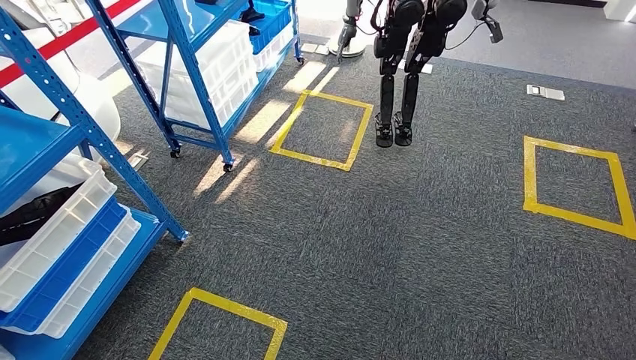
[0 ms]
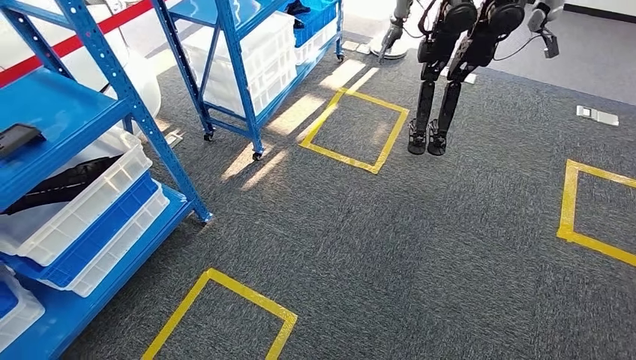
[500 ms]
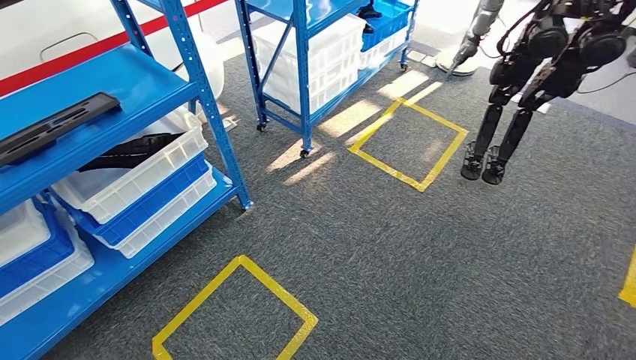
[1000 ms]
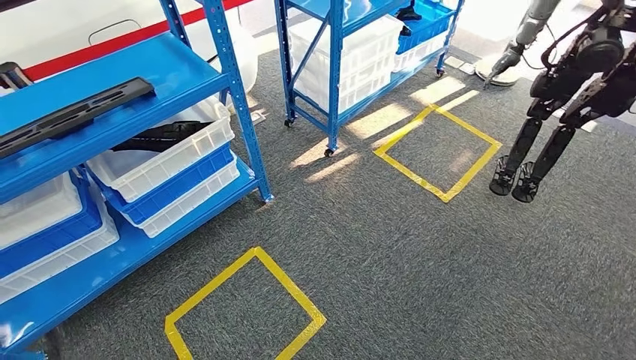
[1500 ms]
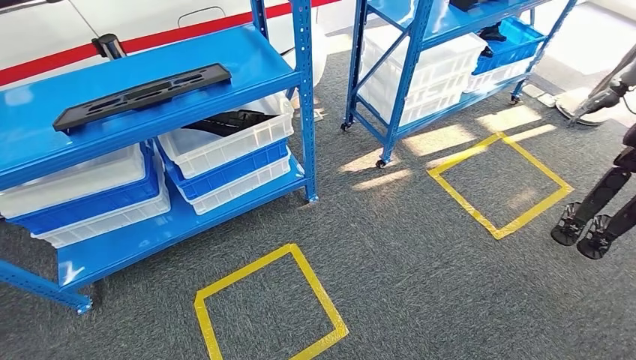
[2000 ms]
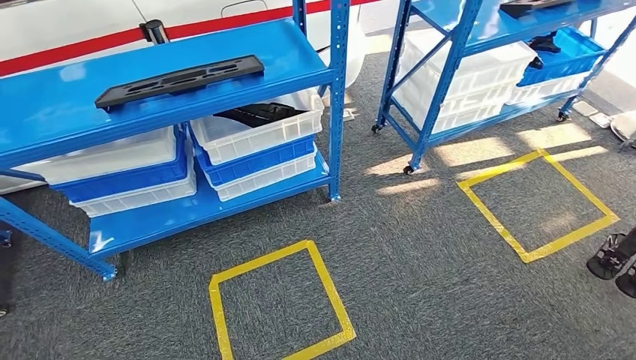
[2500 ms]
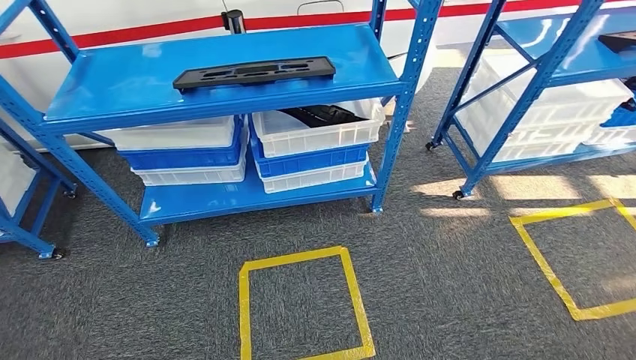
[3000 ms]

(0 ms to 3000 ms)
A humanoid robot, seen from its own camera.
Step, 0 ms - 3000 ms: Return to the initial position at the shelf.
